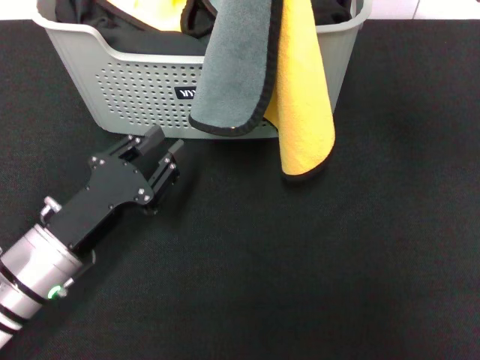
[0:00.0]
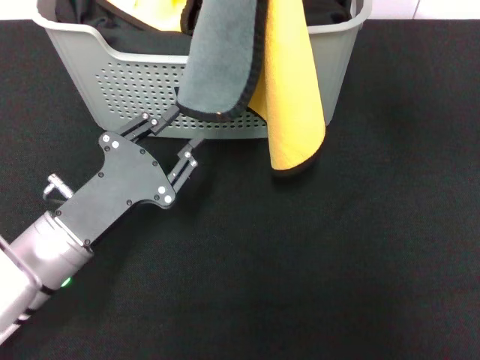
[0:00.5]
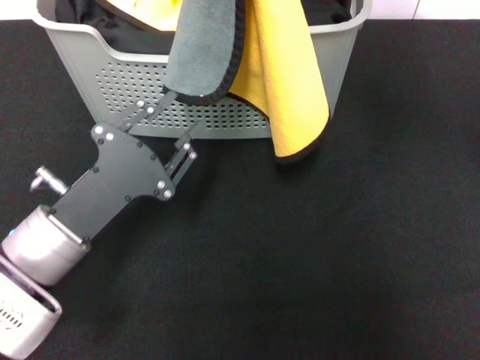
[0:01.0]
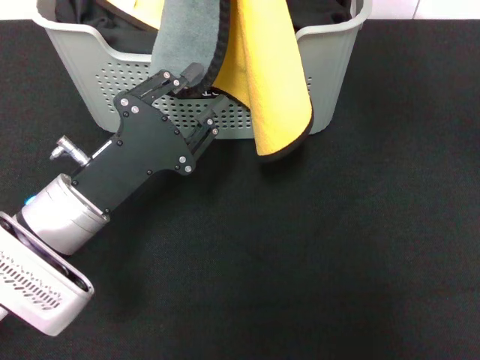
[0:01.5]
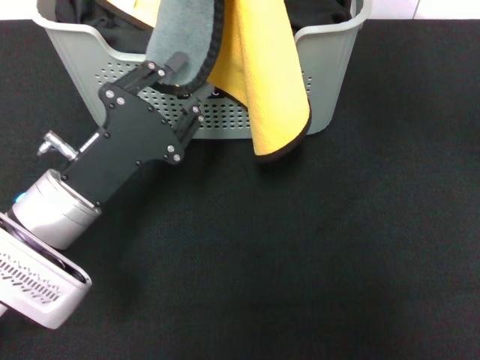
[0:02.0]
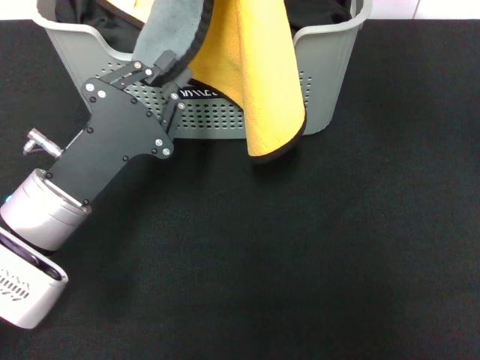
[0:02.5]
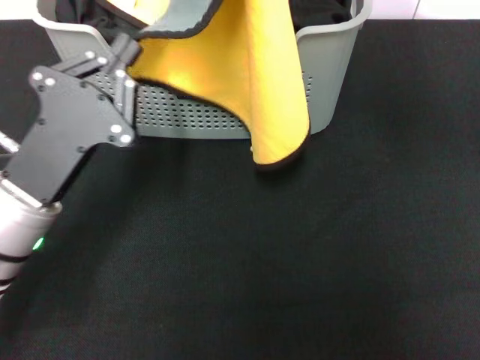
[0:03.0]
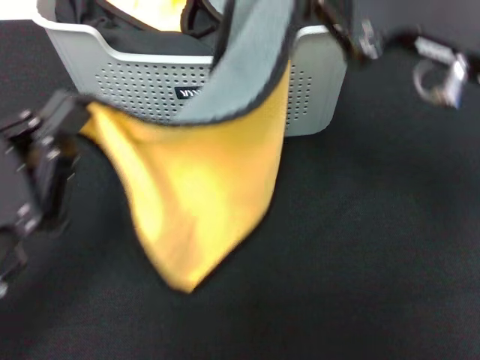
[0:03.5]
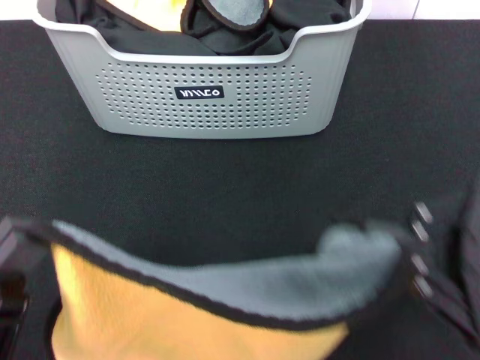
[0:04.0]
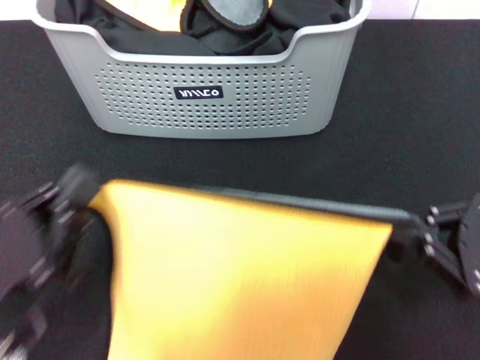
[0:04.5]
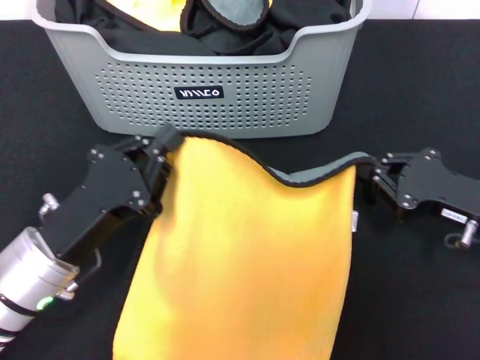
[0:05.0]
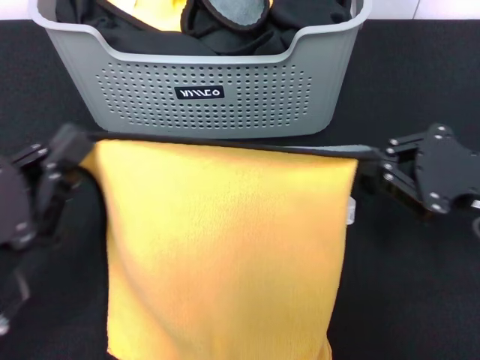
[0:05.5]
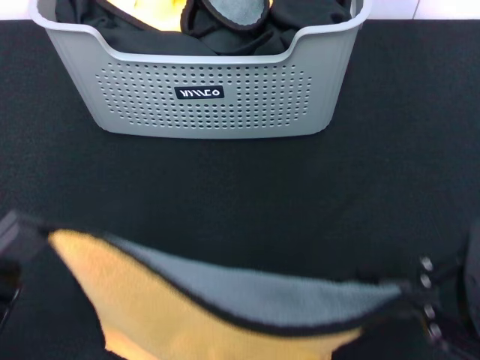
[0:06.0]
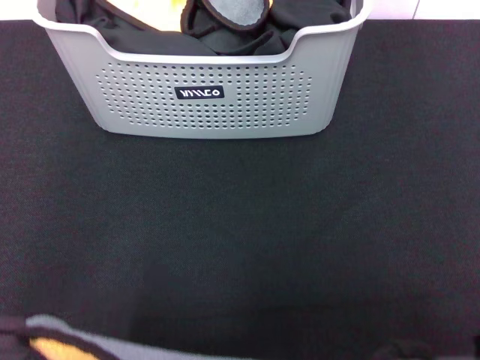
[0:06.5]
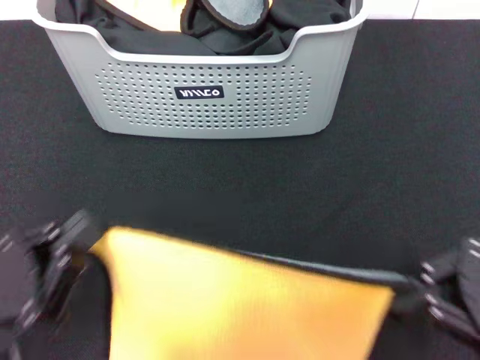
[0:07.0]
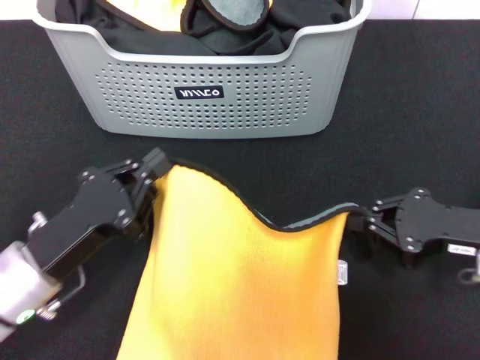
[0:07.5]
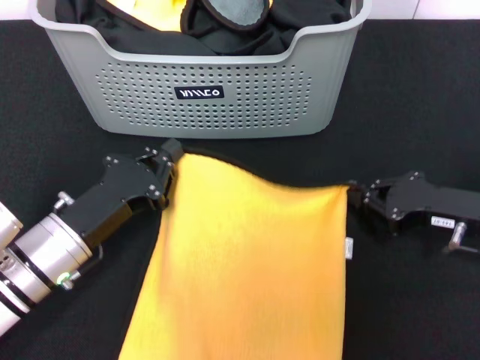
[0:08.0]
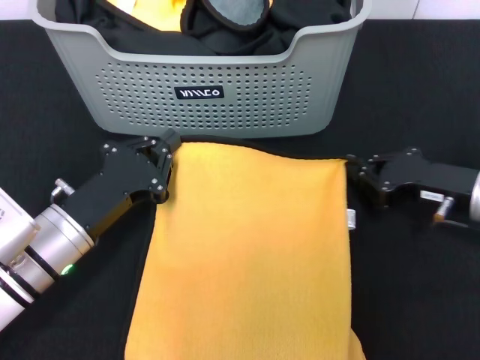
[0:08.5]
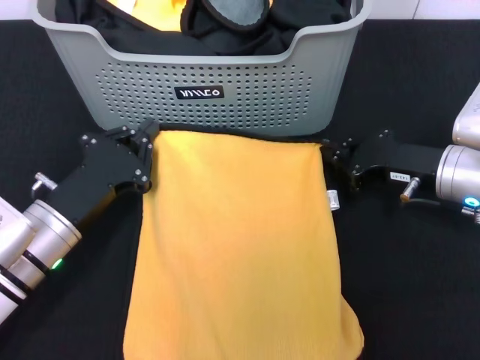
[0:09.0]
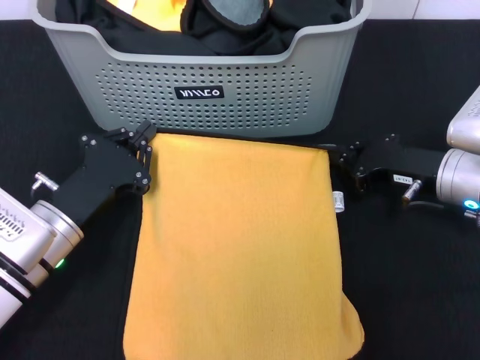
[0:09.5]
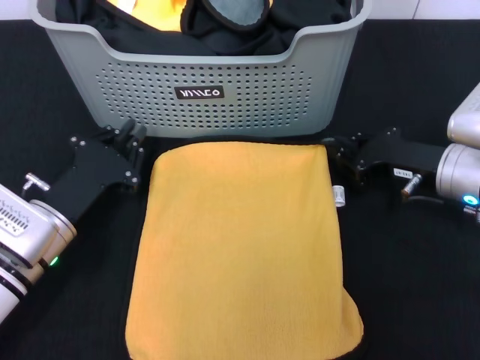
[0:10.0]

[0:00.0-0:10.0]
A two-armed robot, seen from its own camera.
Task of the whole recording: pick up the towel from the storage box and lay it flat on the black tablecloth.
0:00.0 to 0:02.0: The left gripper shifts by some 5 cm, while the right gripper moves some 5 cm.
0:02.0 to 0:04.0: The left gripper moves backward, about 15 cm, and closes. Meanwhile the right gripper moves backward and to the right, roughly 25 cm.
0:04.0 to 0:06.0: The right gripper moves approximately 15 cm downward and comes back; the left gripper moves about 10 cm forward and comes back.
0:06.0 to 0:08.0: The left gripper travels forward and downward by about 15 cm. Meanwhile the right gripper travels downward and forward by about 20 cm.
0:08.0 to 0:10.0: The right gripper ends up some 5 cm from where it was.

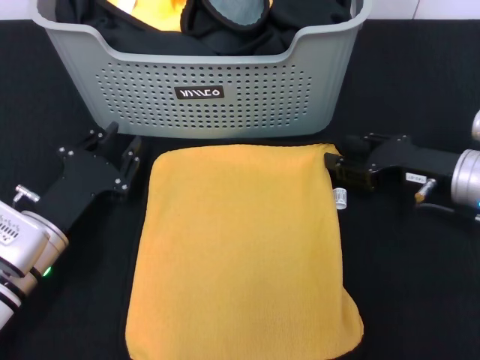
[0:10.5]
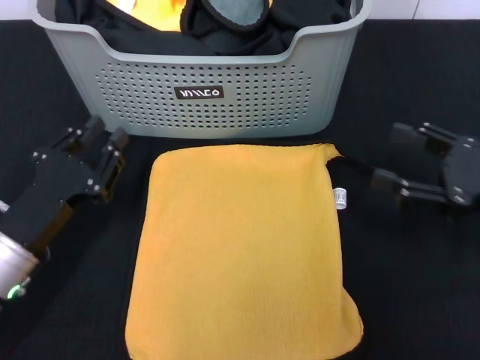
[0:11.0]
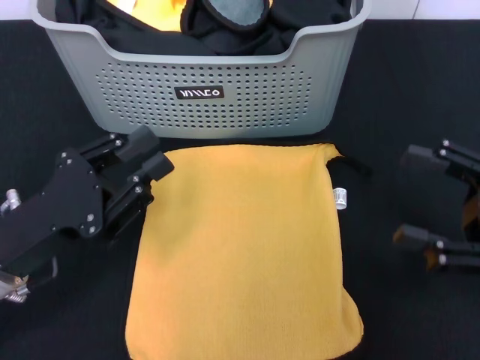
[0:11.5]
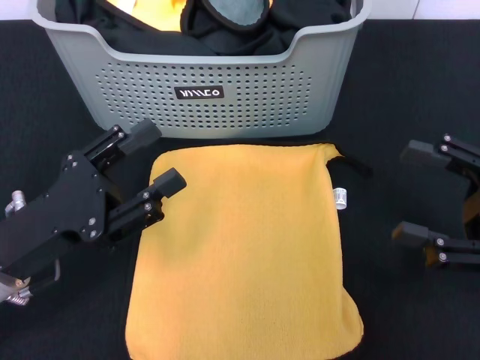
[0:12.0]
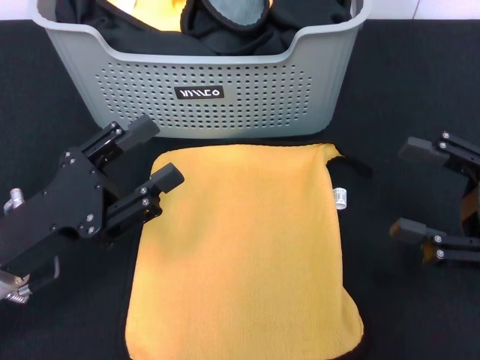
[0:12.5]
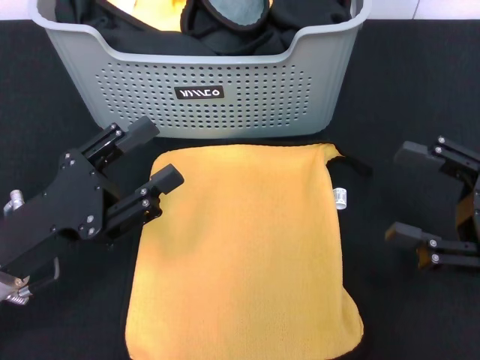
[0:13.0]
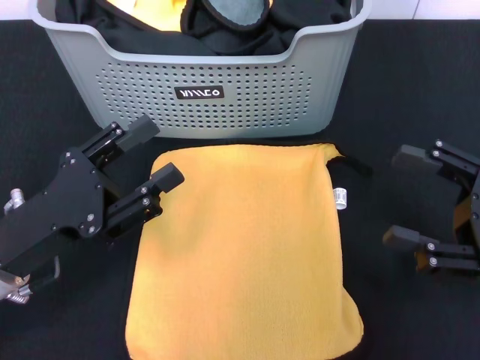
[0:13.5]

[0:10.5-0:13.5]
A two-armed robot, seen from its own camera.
Task of the whole recording: pick up the towel from the storage box and lay it flat on the black tablecloth.
0:10.5 to 0:12.0: The right gripper goes some 15 cm backward, to the right and upward, and opens up. The left gripper is displaced upward by roughly 5 cm.
0:12.0 to 0:13.5: Neither gripper changes place.
